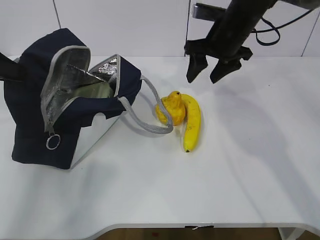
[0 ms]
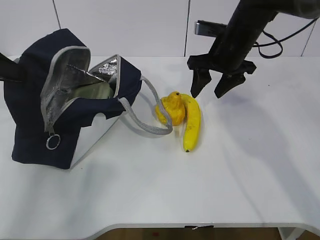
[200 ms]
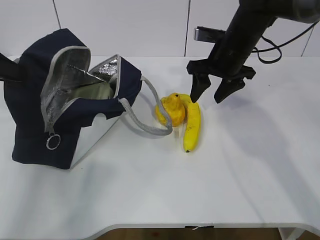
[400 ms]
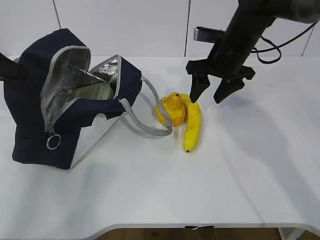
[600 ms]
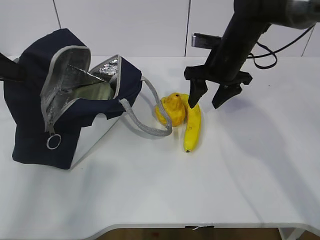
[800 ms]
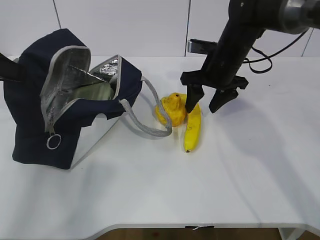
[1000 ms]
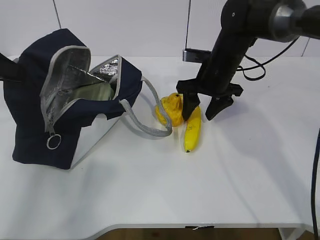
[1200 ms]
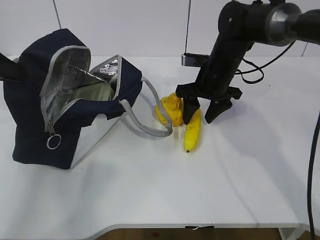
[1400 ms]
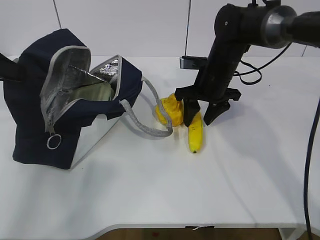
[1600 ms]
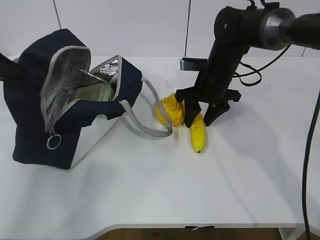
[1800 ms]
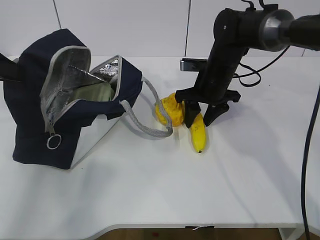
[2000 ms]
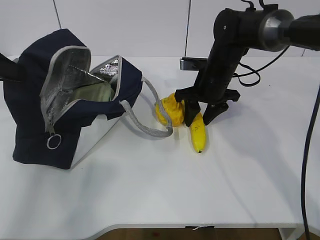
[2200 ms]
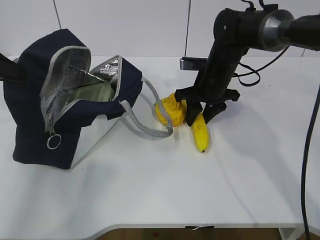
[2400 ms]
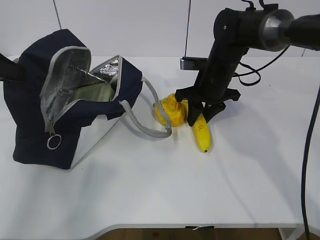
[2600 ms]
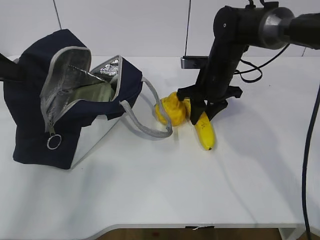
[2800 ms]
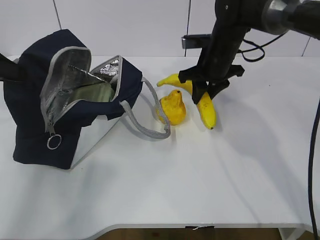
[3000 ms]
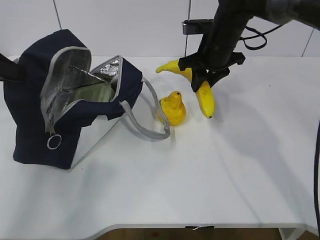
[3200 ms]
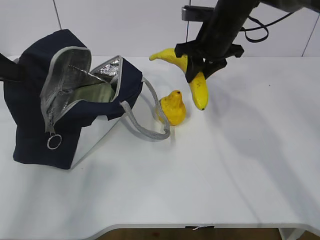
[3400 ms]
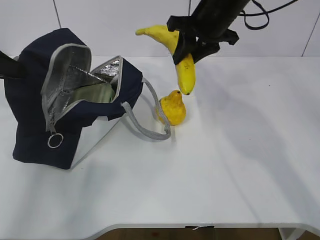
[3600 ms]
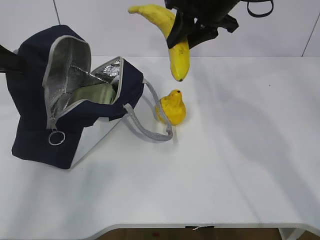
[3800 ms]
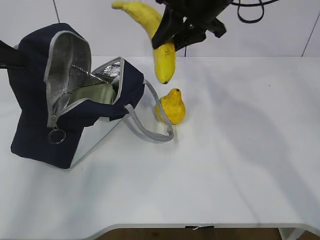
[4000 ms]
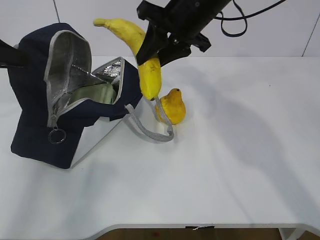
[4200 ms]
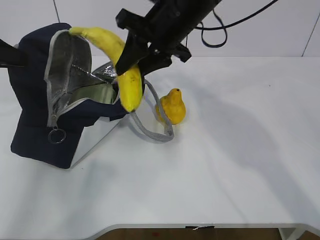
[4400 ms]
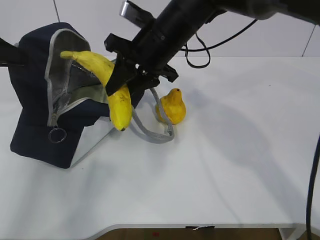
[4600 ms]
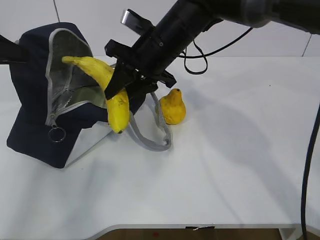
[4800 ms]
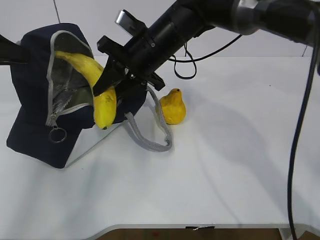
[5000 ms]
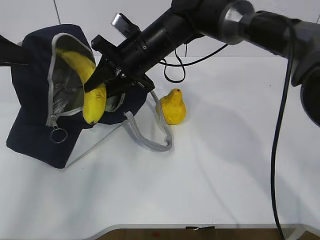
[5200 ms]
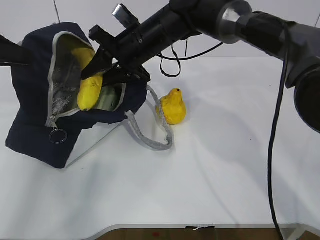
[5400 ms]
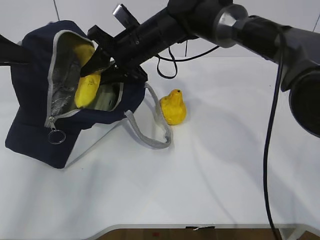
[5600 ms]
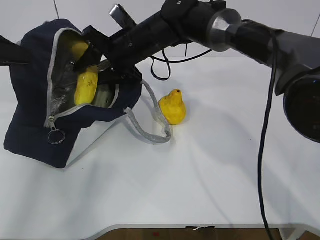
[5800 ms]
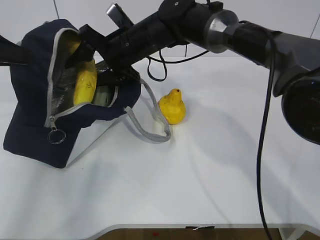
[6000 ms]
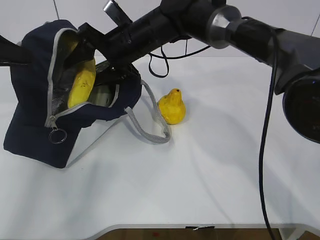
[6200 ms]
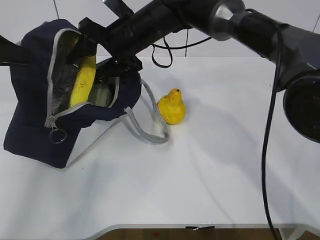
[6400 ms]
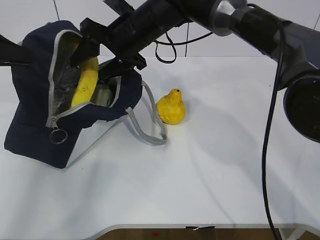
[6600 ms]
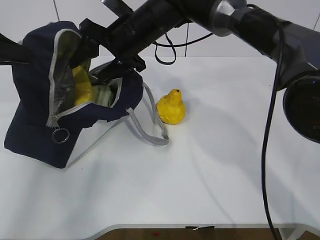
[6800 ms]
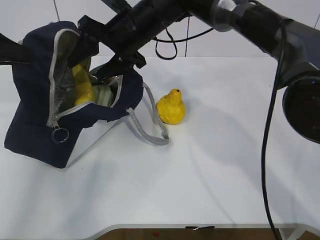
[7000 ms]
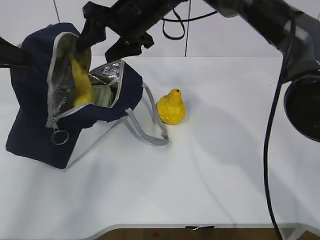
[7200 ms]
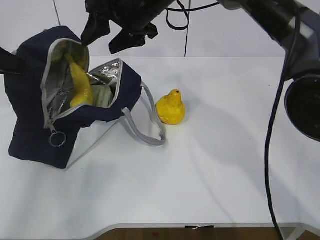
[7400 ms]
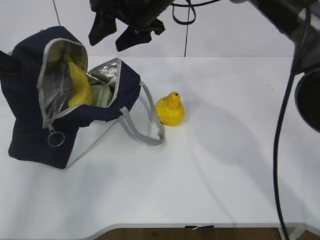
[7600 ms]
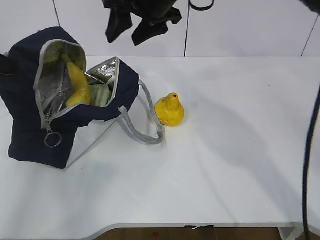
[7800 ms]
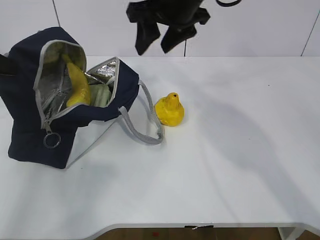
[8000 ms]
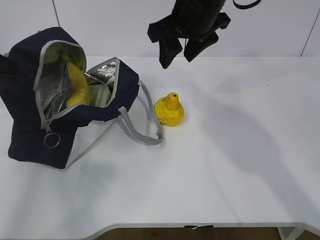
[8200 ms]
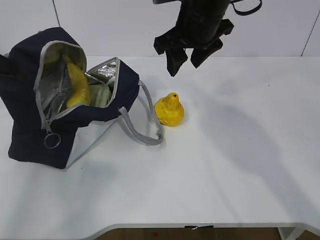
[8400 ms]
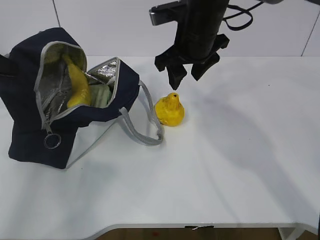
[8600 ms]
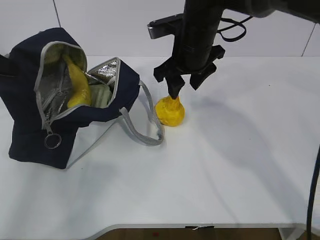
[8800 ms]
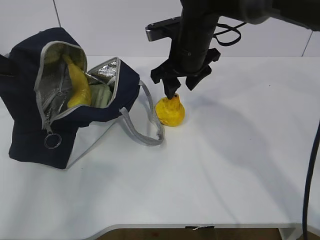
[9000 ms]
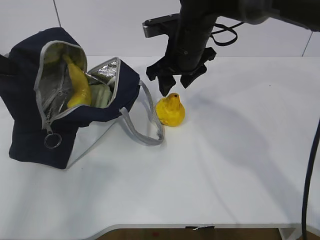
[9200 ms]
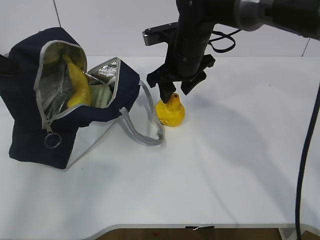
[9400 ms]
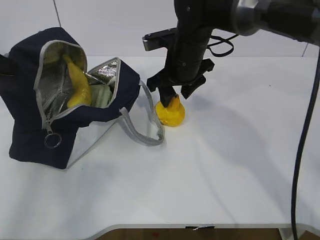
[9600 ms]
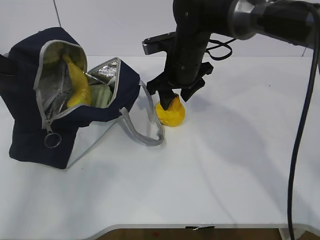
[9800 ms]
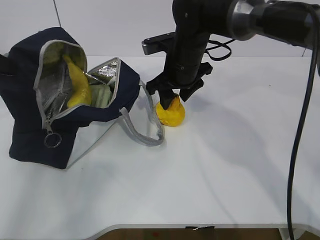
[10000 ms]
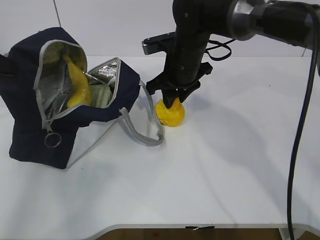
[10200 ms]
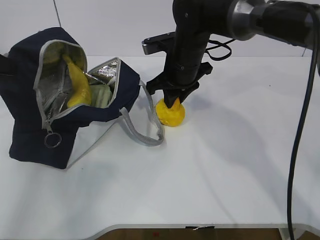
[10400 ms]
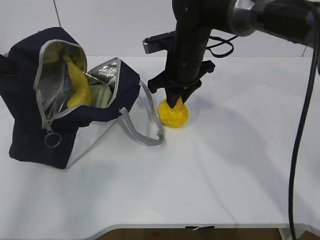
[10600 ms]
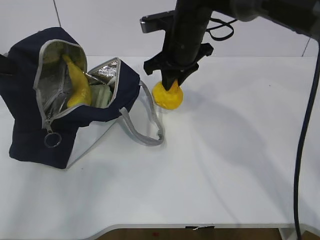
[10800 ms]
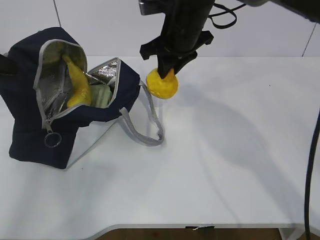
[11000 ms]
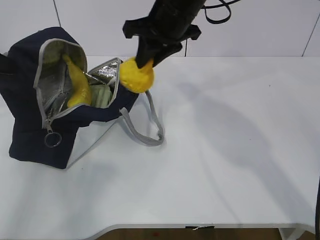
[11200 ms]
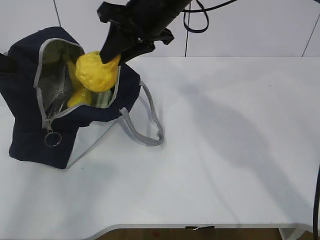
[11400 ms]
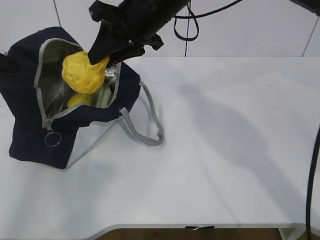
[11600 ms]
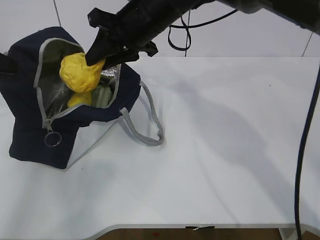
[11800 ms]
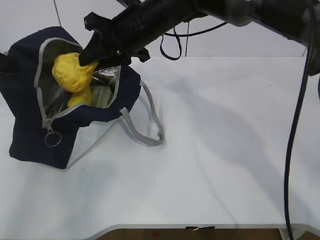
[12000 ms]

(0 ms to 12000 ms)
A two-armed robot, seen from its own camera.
Step, 0 ms - 2600 ms: Grasp the banana with the right gripper.
Step, 2800 ms - 6800 ms: Place the banana into the package with the right gripper.
Step, 7200 ms - 10200 ms: Grasp the pear with the right gripper.
0 ms - 1600 ms: The right gripper is displaced downward by some 10 cm.
1600 ms - 3000 ms: The grippers move only a little.
3000 ms - 4400 ms: The right gripper shifts some 15 cm upward, to the left and backward.
4400 ms - 6000 ms: The right gripper shifts about 10 cm downward, to the left and forward, and opens up.
6000 ms - 7600 ms: The right gripper shifts approximately 10 cm upward.
7600 ms - 9000 ms: The right gripper travels downward and to the right by roughly 10 cm.
9000 ms - 10400 ms: The right gripper closes.
10400 ms - 12000 ms: The right gripper goes some 10 cm upward and to the left.

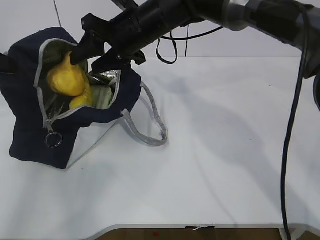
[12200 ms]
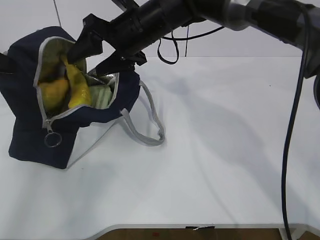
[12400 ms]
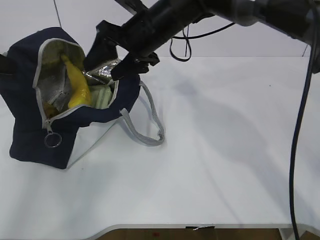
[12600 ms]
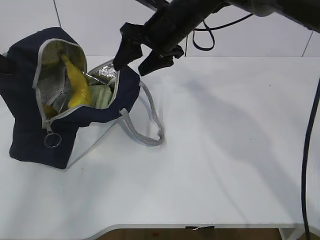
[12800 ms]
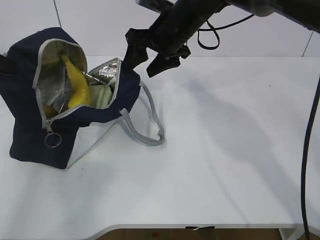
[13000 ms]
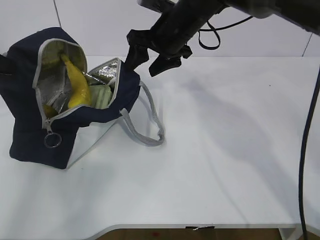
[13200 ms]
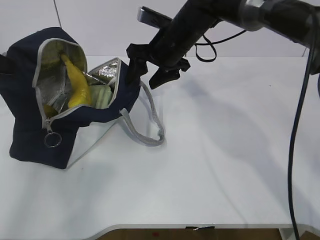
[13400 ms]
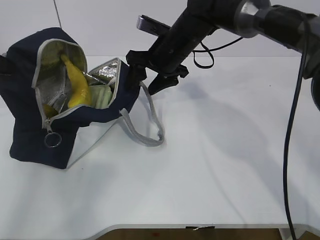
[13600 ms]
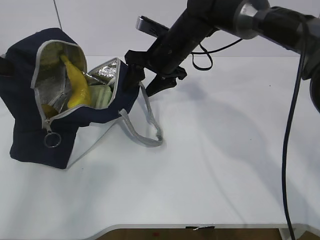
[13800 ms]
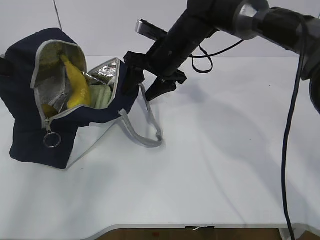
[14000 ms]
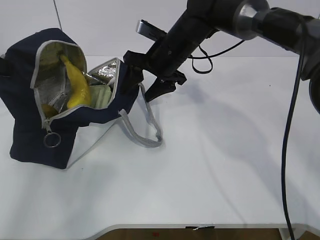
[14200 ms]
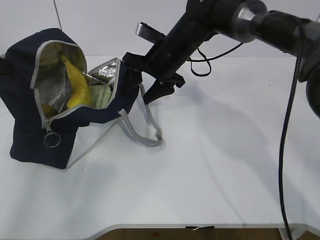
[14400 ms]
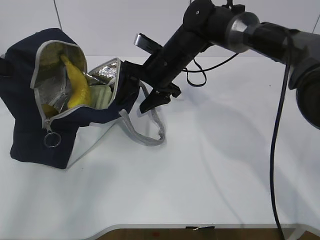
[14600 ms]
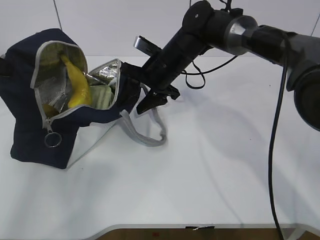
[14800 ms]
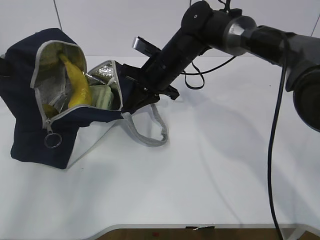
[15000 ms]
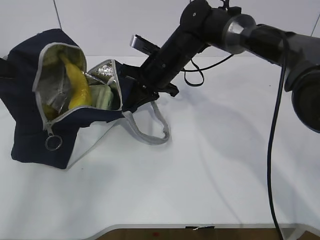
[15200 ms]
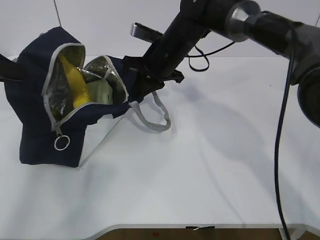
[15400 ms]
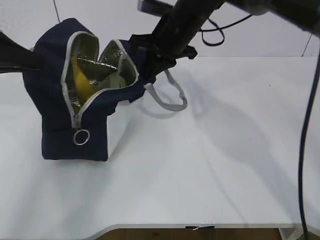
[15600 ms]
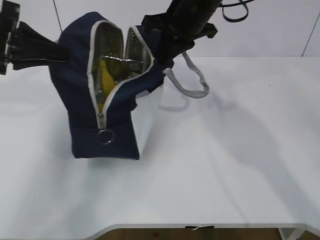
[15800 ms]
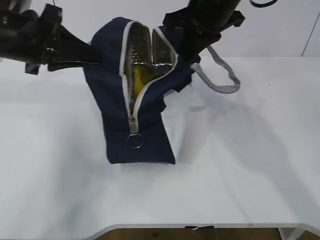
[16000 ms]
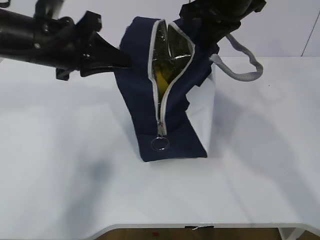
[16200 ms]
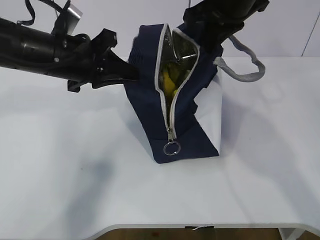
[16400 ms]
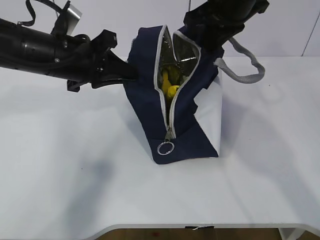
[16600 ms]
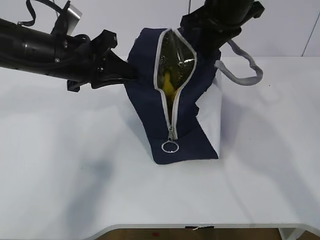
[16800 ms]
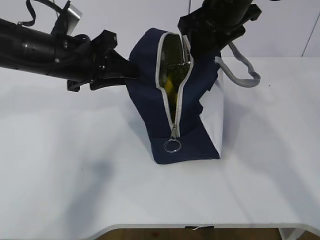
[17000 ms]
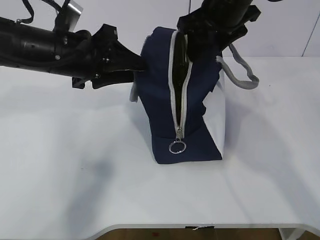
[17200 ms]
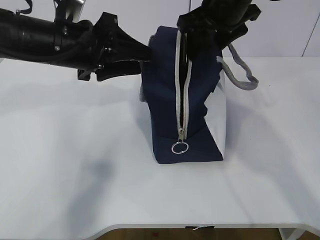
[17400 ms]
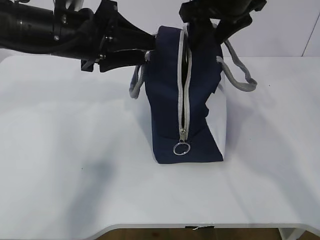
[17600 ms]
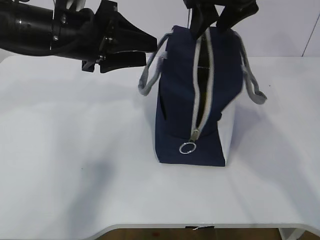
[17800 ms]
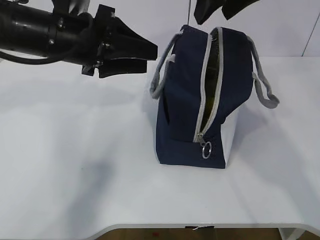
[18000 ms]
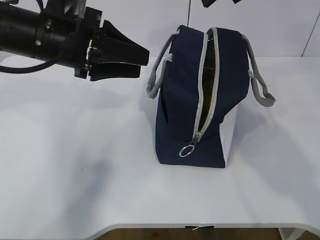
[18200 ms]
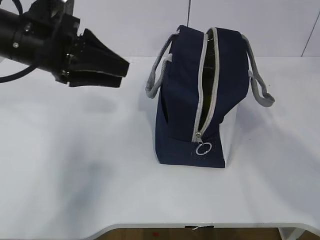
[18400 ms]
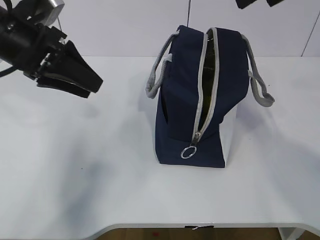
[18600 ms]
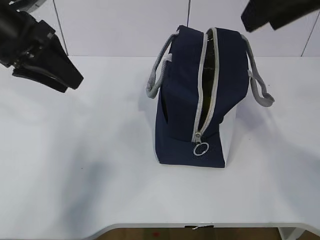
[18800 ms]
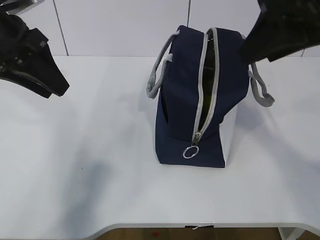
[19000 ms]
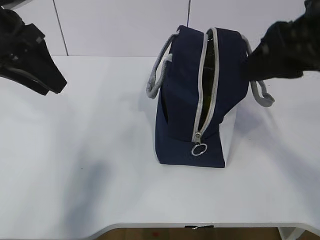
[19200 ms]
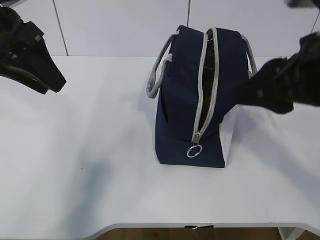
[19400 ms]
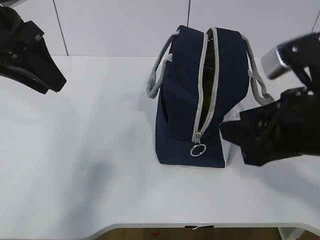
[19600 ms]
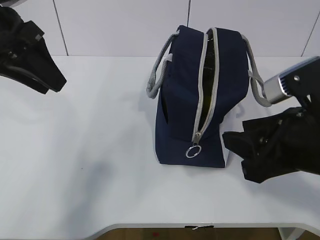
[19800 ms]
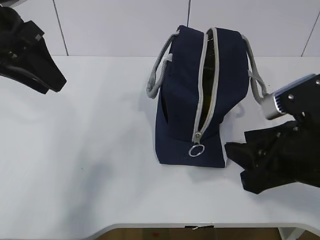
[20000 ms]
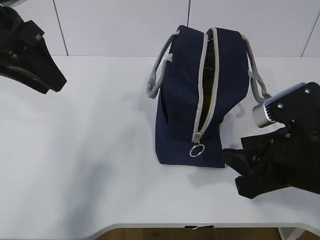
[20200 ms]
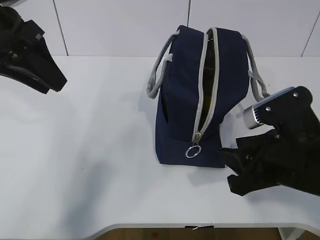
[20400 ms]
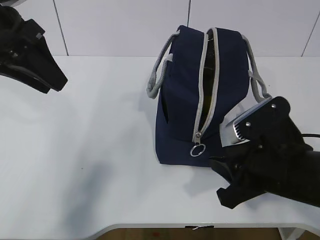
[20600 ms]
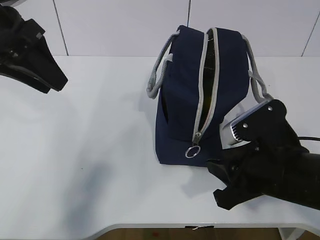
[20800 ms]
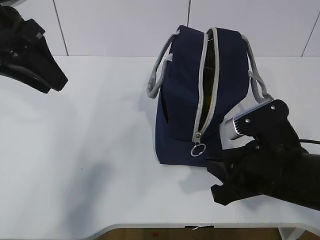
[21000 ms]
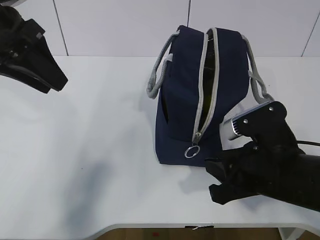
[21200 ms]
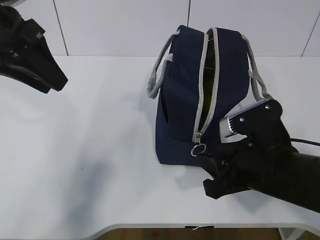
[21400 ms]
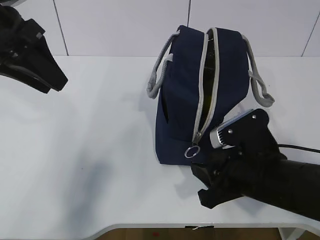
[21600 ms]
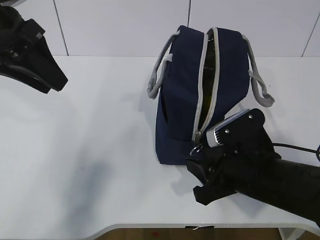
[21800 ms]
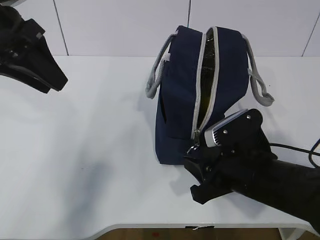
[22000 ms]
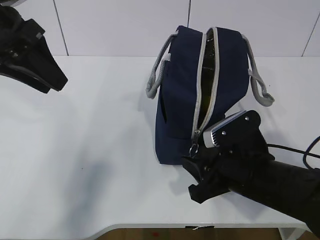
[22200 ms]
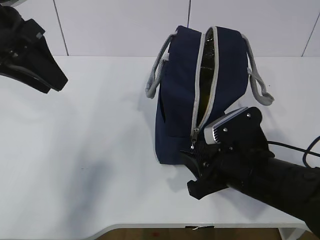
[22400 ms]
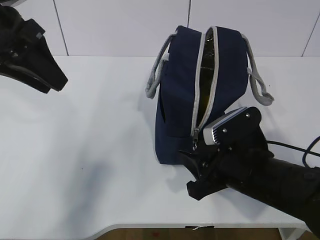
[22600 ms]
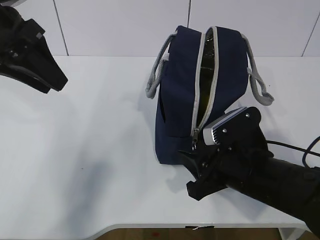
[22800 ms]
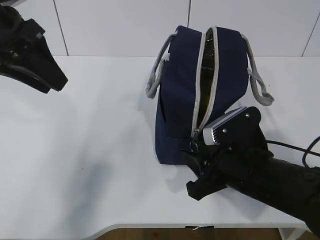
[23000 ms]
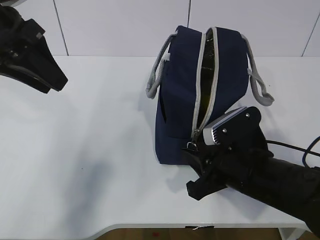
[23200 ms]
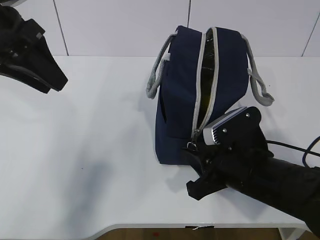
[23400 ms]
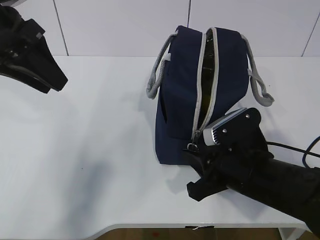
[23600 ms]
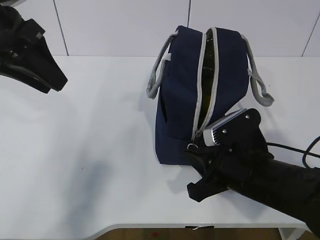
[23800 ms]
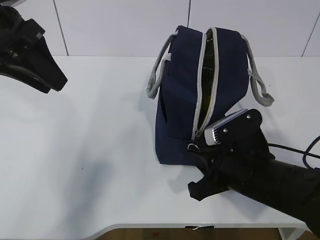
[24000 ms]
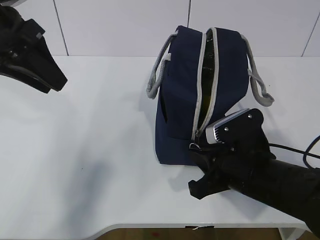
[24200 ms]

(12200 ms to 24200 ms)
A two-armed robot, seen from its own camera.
12200 ms - 13800 ms: The right gripper is displaced to the right and downward by approximately 5 cm.
13800 ms - 15200 ms: The right gripper closes up.
15200 ms - 16600 ms: The left gripper is displaced to the right by about 20 cm. Meanwhile the right gripper goes about 20 cm upward, to the right and backward.
16600 ms - 18200 ms: The right gripper goes roughly 5 cm upward, and opens. Meanwhile the left gripper opens its fingers.
18200 ms - 19800 ms: The left gripper moves to the left, roughly 5 cm; the right gripper shifts some 25 cm downward and backward.
19800 ms - 21200 ms: The right gripper shifts roughly 5 cm downward.
21200 ms - 22600 ms: There are only small adjustments of the grippers.
22600 ms - 24200 ms: The right gripper closes.
